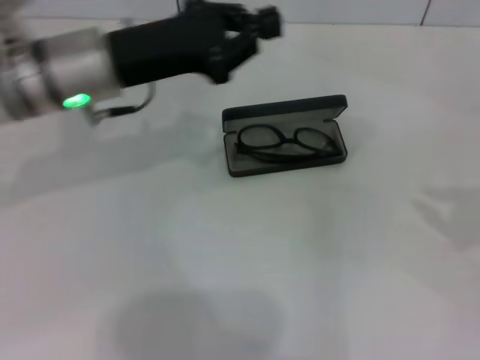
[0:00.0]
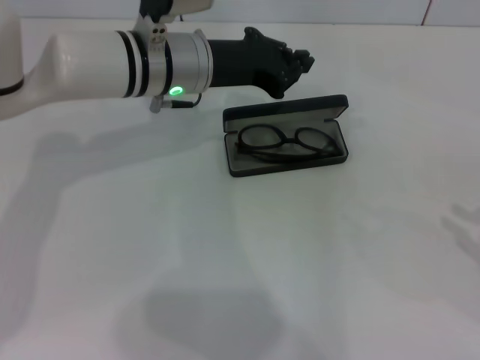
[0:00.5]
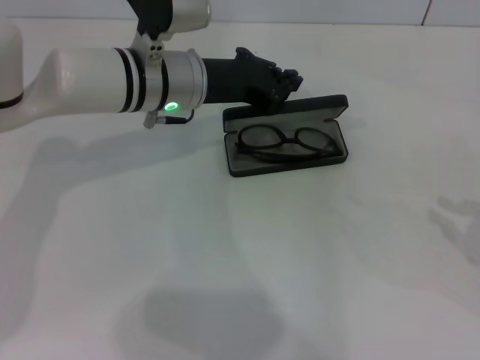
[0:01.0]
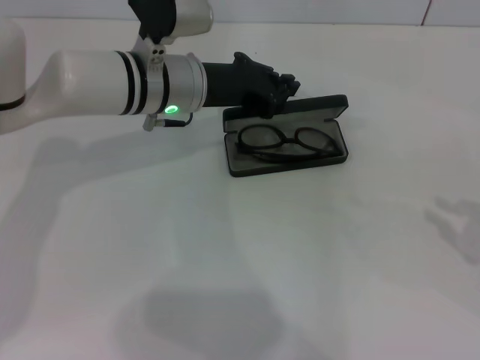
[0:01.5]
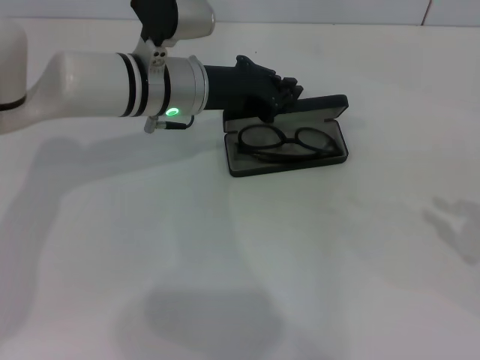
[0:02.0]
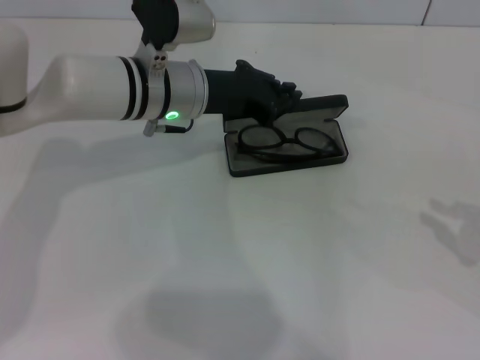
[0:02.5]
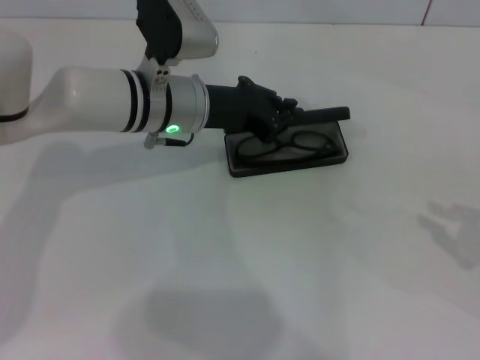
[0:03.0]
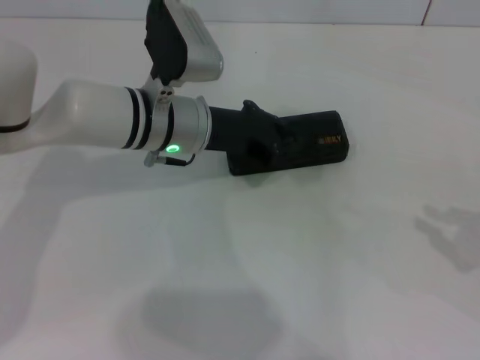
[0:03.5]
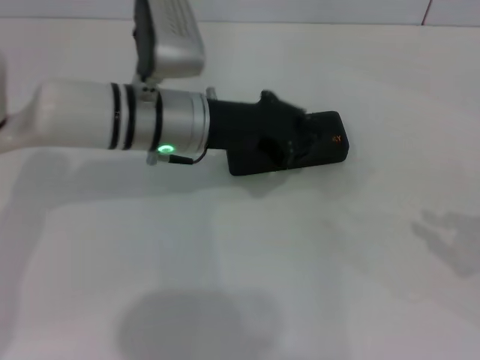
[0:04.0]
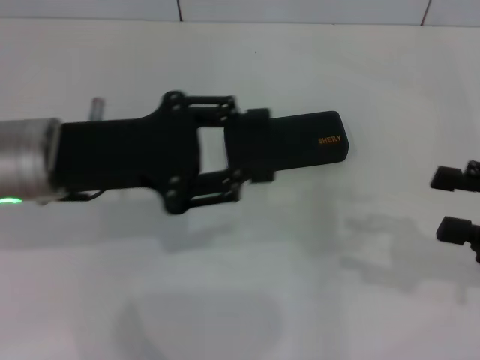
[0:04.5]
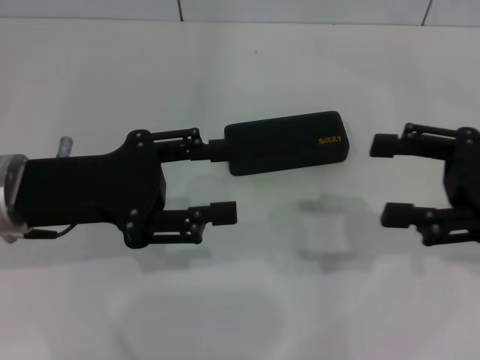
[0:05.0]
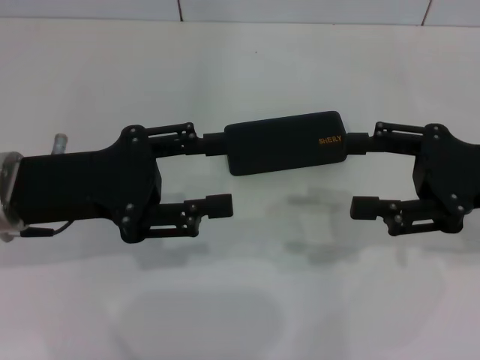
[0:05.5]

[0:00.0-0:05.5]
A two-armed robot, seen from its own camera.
Step, 0:00.0 to 0:03.5: Close the glasses case with your left hand.
0:00.0 to 0:02.0: The left gripper is displaced to the right by some 5 cm. Meanwhile the right gripper shifts roughly 5 cm downward.
0:02.0 to 0:03.5: The grippers move only a little.
0:03.5 to 0:05.5: The left gripper goes about 20 cm to the left, backward and upward, and opens up; the right gripper moves to the left and forward, approximately 15 cm, and opens its fingers.
